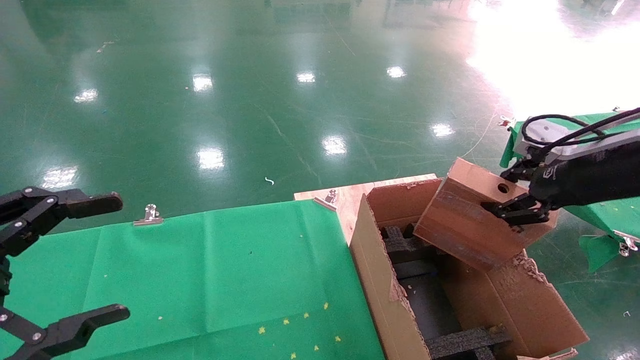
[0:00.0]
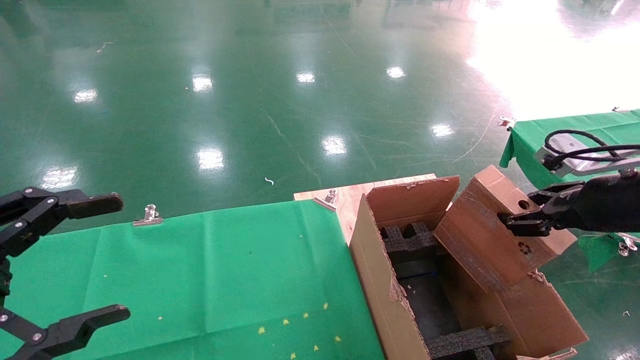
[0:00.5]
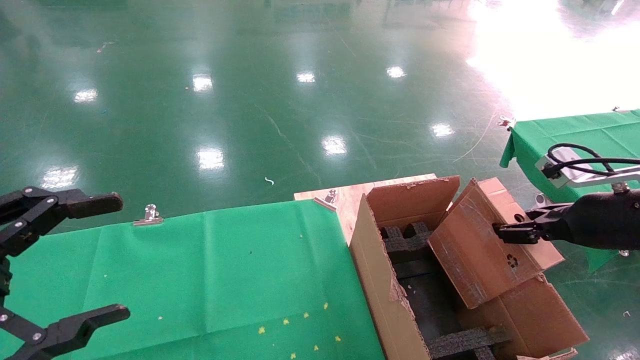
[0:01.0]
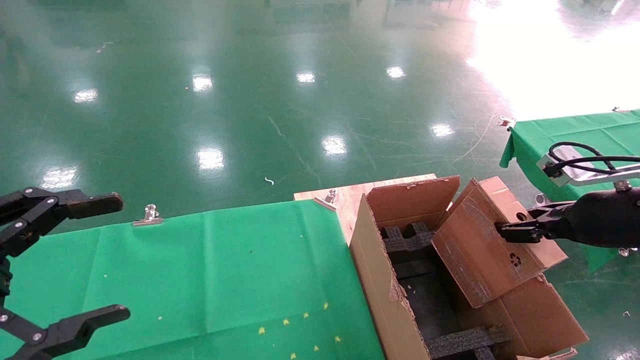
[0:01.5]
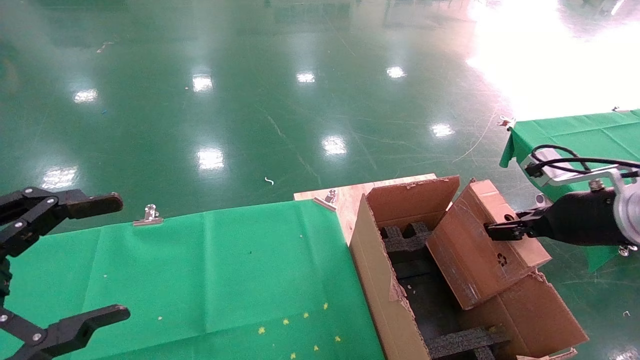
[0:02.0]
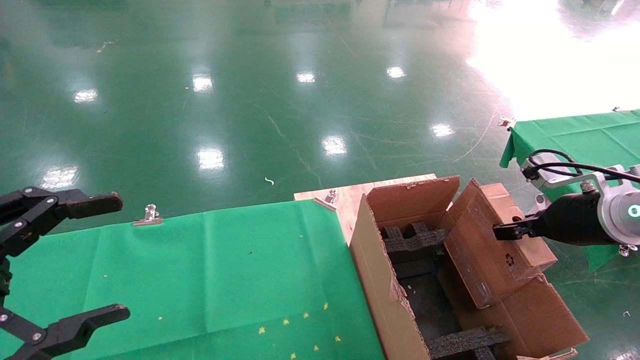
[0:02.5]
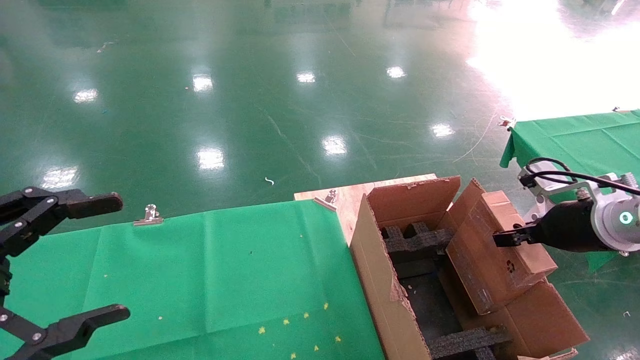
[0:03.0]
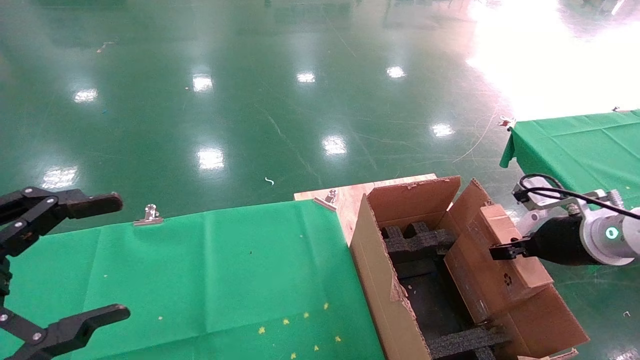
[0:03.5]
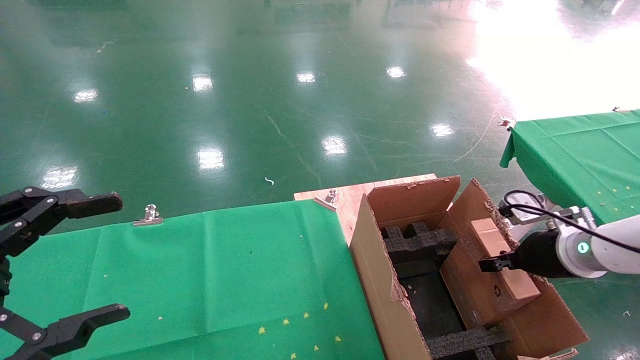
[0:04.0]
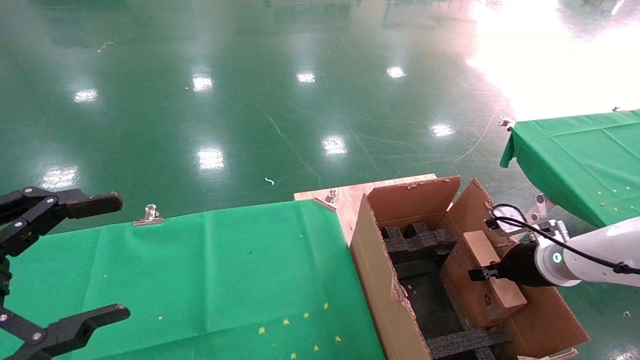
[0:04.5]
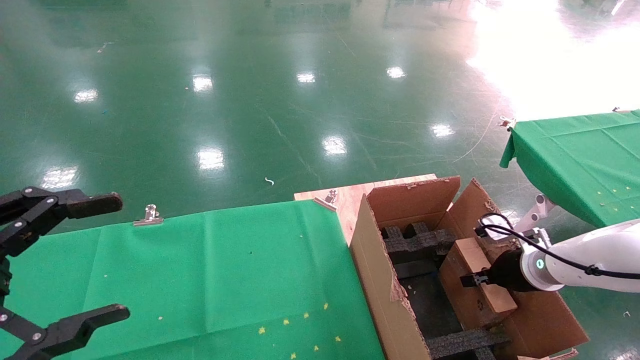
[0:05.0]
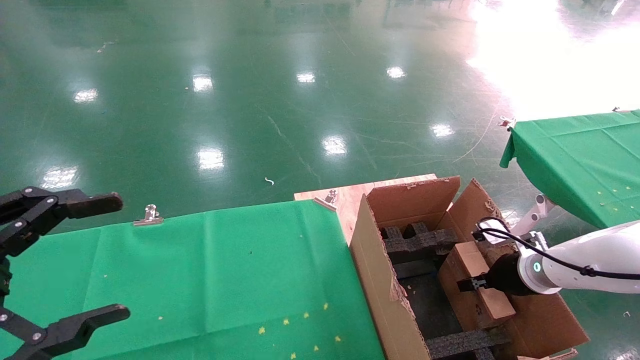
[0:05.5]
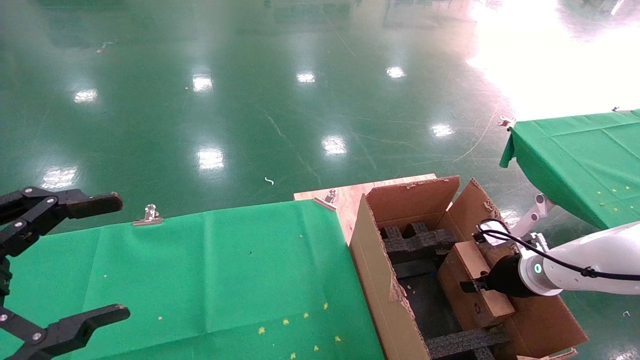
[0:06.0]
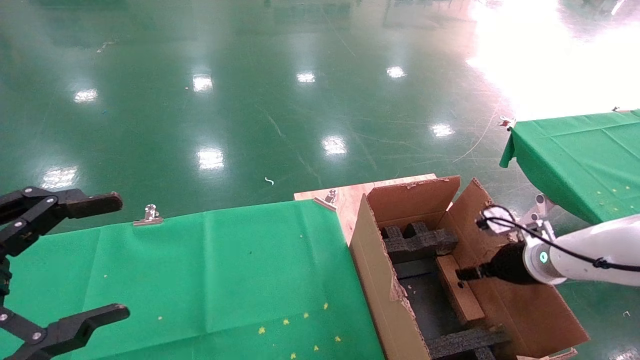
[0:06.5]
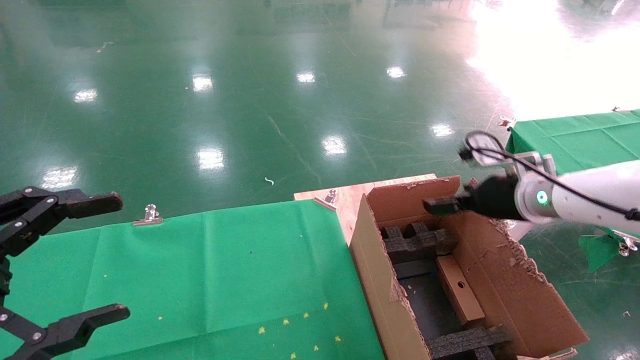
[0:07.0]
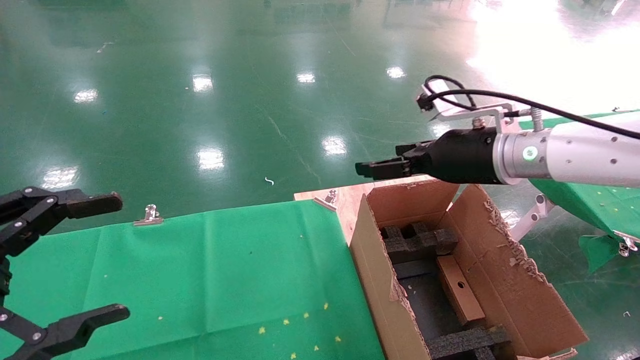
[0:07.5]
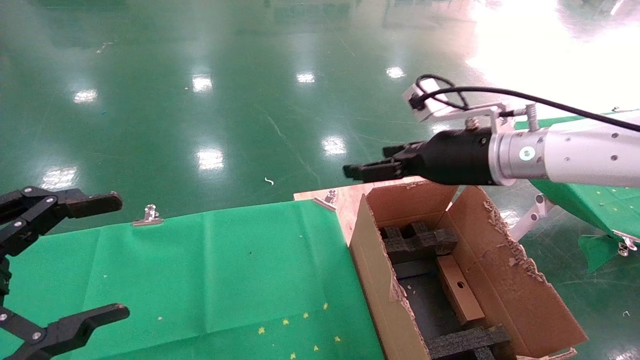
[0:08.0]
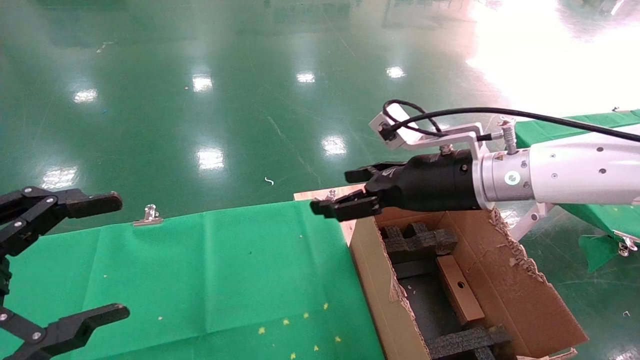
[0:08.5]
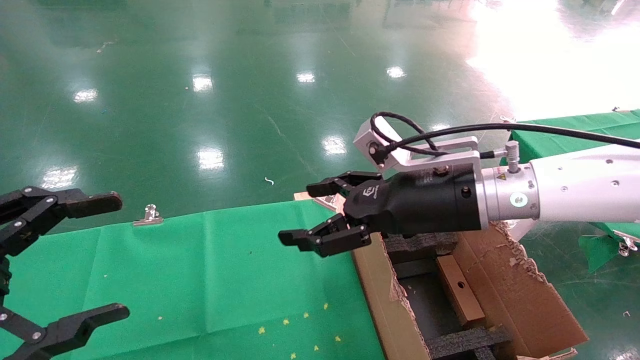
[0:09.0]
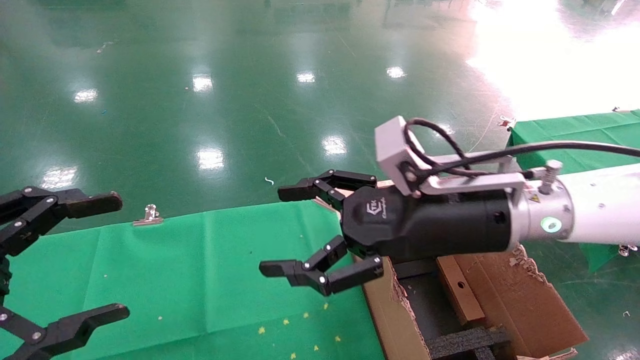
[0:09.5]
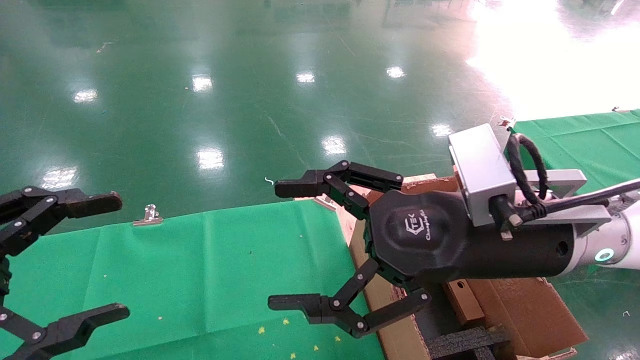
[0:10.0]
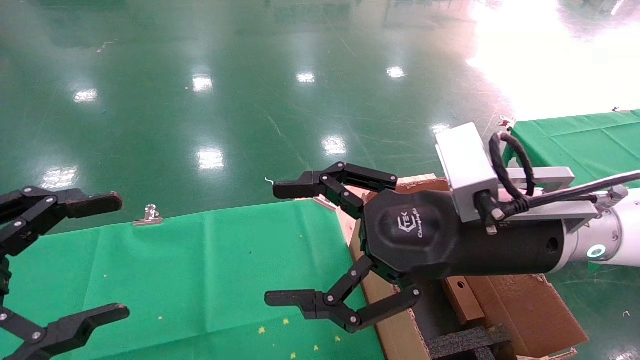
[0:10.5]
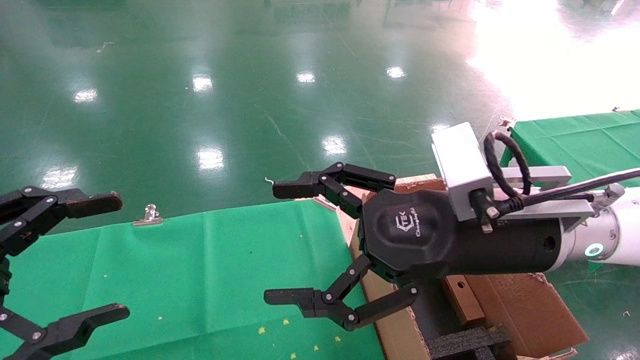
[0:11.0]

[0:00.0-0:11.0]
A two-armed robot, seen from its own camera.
Task of the whole recording: using a robotic arm to pick up a cardboard box and palace it the carton.
Step, 0:00.0 to 0:06.0: Place the mouse and the power cord paper box into the container.
0:00.0 to 0:02.0: The right gripper travels downward by roughly 10 cm.
0:02.0 to 0:03.5: The right gripper travels downward by about 5 cm.
0:03.5 to 0:05.5: The right gripper travels downward and forward by approximately 10 cm.
0:05.5 to 0:07.5: The right gripper heads upward and to the left, covering approximately 25 cm, and opens up.
0:07.5 to 0:09.0: The right gripper travels to the left and backward by about 10 cm.
0:09.0 to 0:11.0: The right gripper goes some 5 cm backward.
